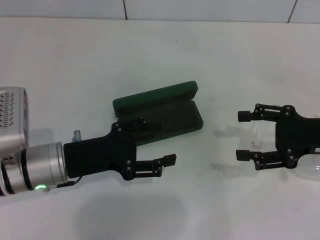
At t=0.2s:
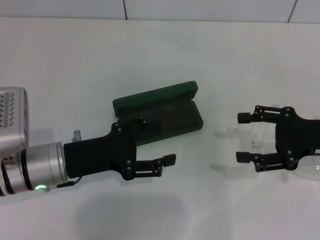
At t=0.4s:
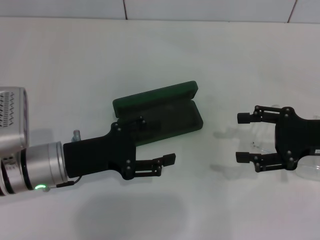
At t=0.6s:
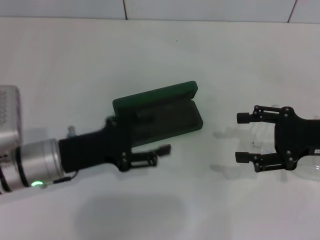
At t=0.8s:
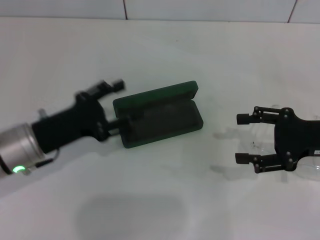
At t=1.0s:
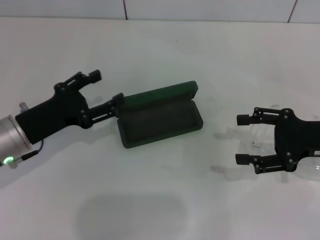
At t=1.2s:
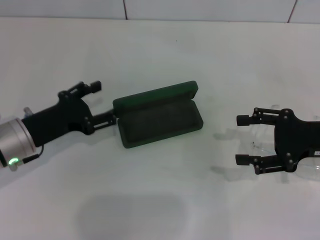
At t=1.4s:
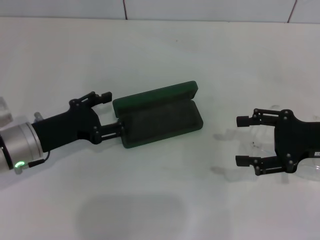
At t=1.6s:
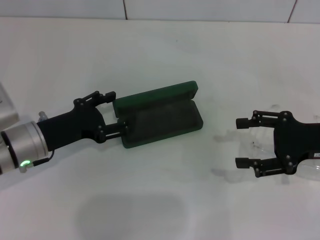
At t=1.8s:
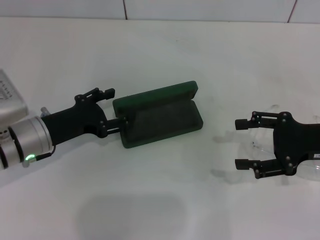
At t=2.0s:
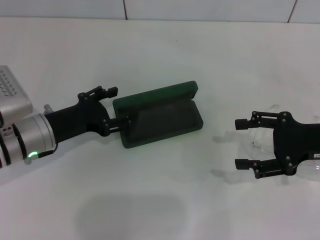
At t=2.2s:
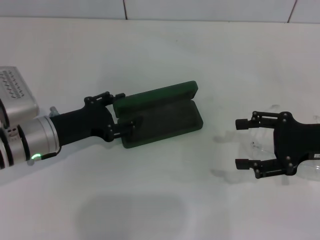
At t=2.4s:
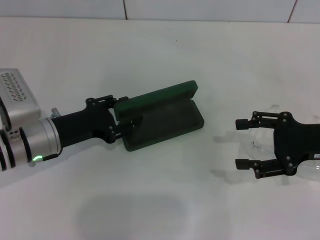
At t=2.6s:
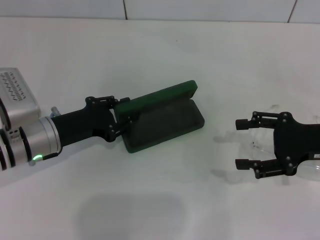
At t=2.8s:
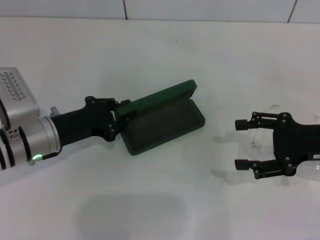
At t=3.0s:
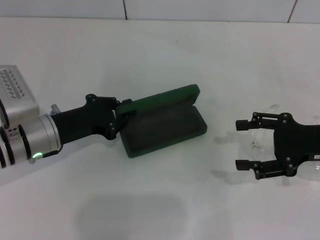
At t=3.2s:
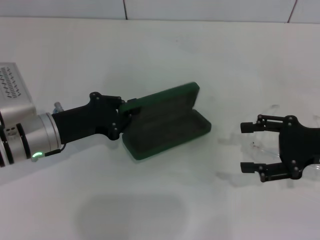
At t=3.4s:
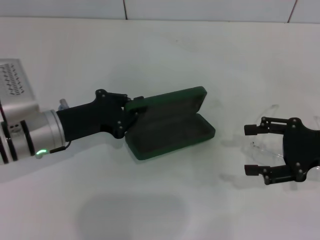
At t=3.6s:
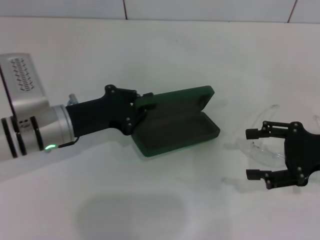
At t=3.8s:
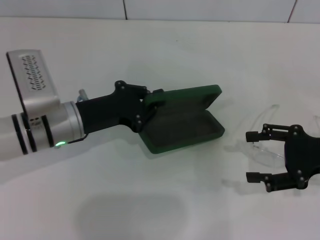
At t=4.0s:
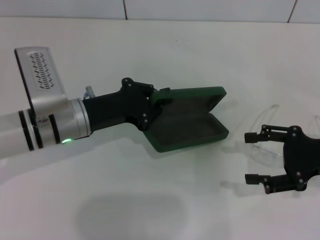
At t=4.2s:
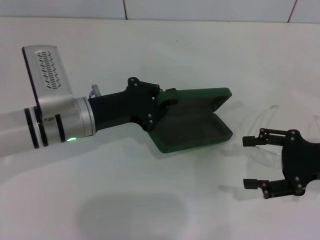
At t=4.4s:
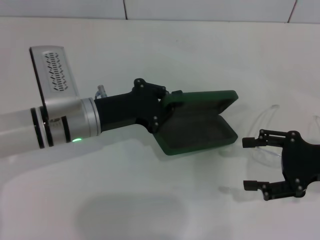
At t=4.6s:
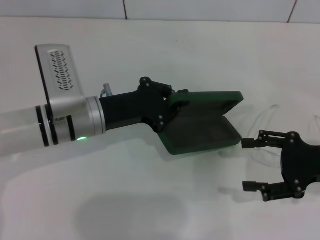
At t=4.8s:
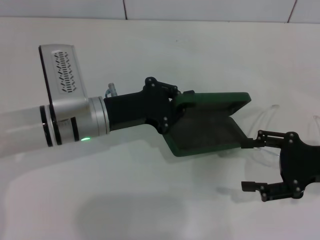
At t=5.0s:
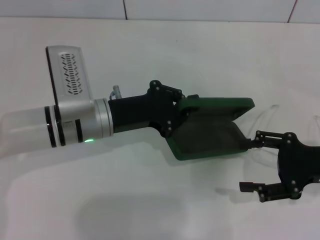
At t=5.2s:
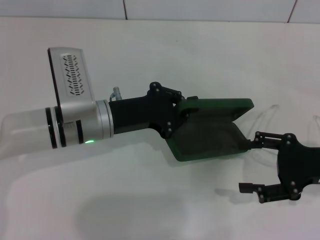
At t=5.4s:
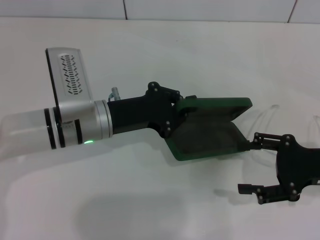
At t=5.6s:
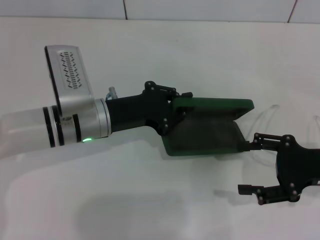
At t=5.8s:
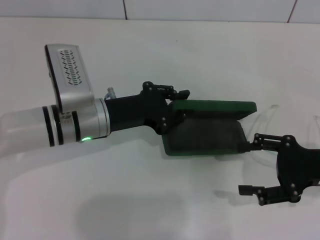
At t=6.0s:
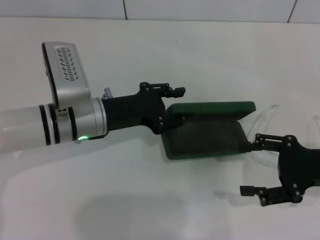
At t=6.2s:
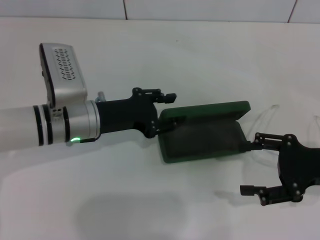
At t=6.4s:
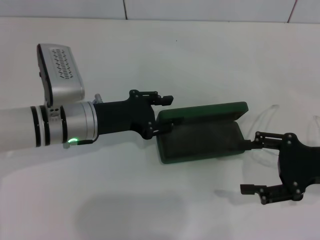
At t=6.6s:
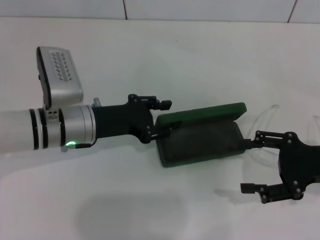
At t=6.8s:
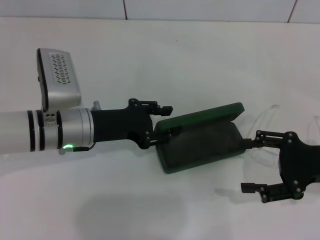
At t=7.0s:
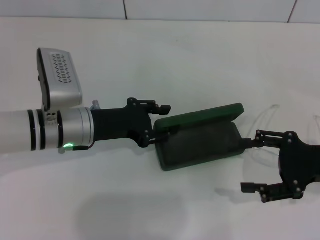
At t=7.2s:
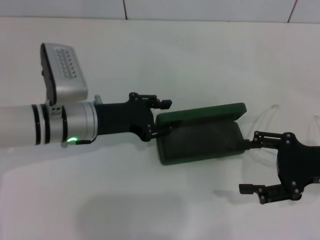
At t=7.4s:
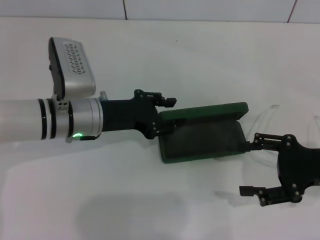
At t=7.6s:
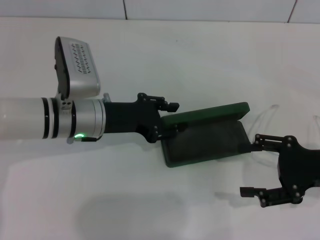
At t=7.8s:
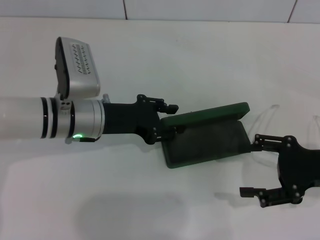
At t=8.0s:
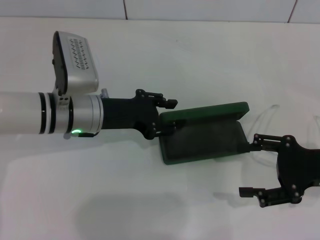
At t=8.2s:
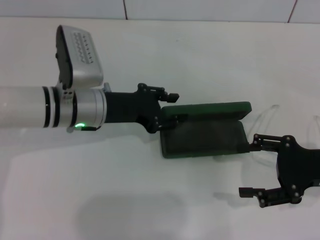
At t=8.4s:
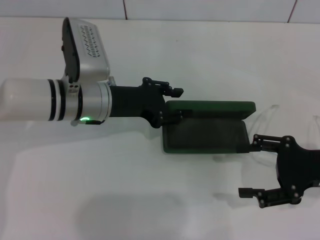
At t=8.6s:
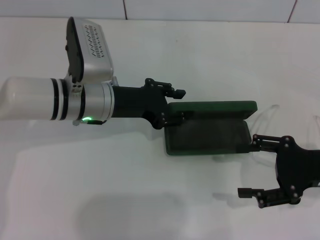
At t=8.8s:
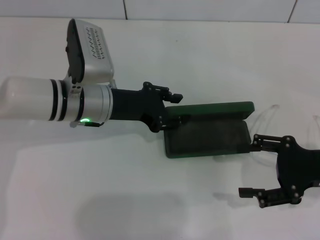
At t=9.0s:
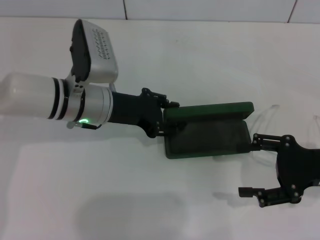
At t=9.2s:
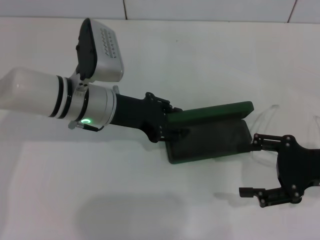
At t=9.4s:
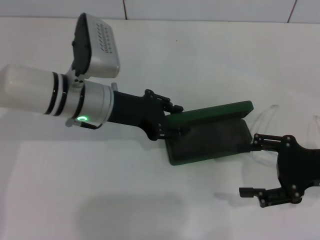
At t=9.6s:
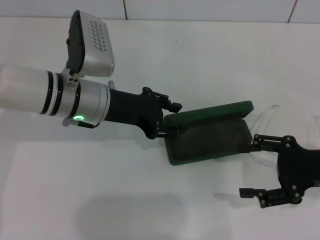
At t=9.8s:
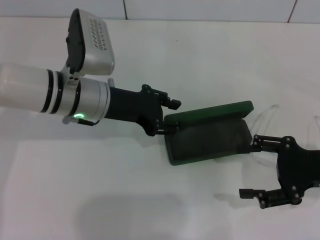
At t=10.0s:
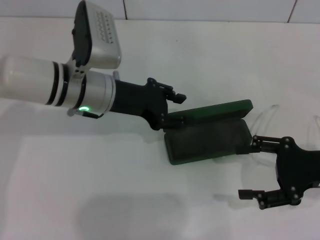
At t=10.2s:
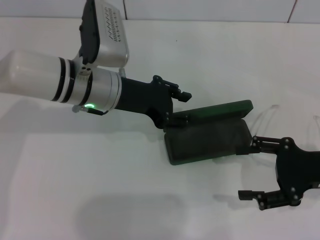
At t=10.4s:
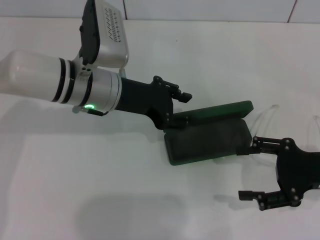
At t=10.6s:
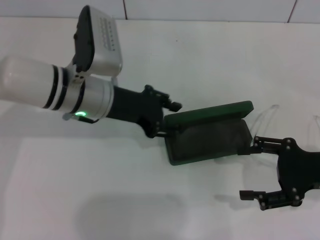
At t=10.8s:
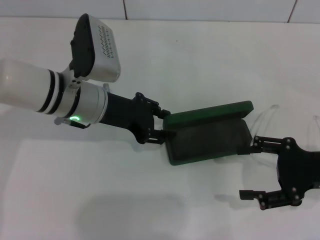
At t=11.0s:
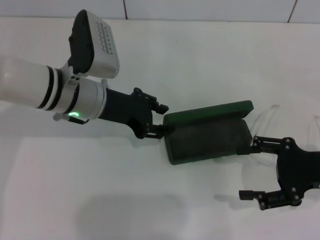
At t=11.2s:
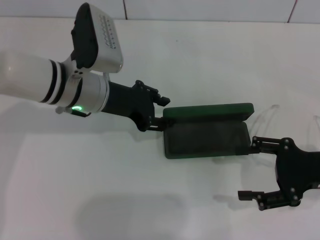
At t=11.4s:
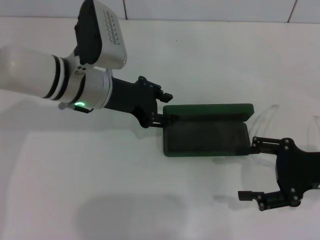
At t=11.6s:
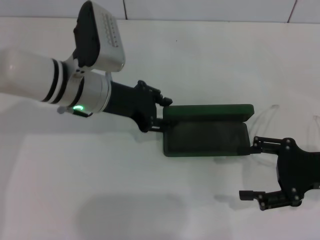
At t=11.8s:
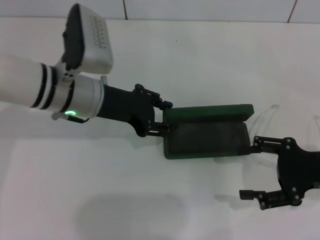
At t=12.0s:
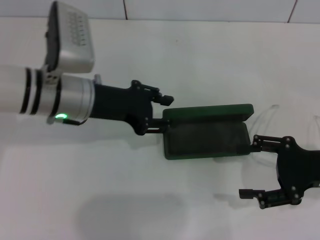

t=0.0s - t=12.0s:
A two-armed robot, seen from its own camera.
Step, t=0.0s - t=2.8s: Grab the glasses case with your left hand.
Step, t=3.2s - t=9.4s: Place the glasses case in the center of the table with your left hand.
t=1.6s - t=3.0s: The left gripper closes its fingers.
t=3.0s - t=4.4s: The left gripper heads to the right, covering roughly 5 cm.
t=4.4s - t=7.6s: The grippers stay close to where they were, moving slightly.
t=7.6s - t=9.0s: The grippers stay close to where they were, moving slightly.
t=9.0s - t=12.0s: The grippers move only a little.

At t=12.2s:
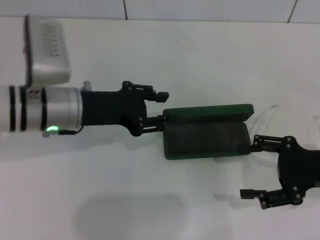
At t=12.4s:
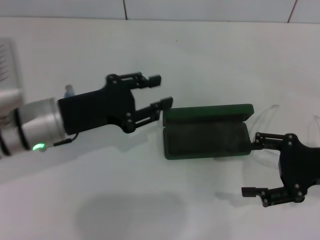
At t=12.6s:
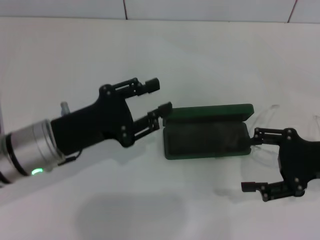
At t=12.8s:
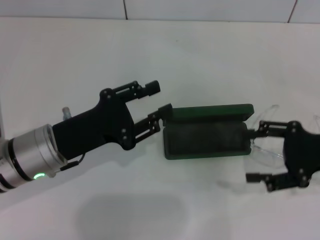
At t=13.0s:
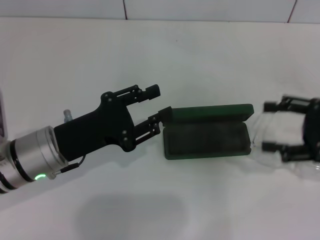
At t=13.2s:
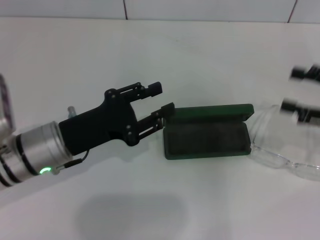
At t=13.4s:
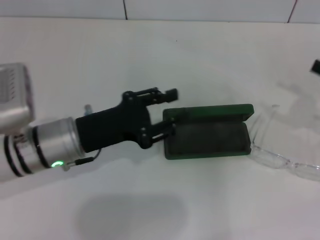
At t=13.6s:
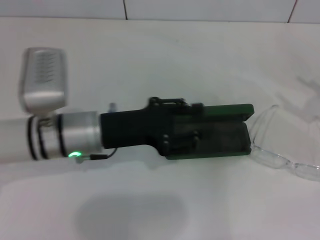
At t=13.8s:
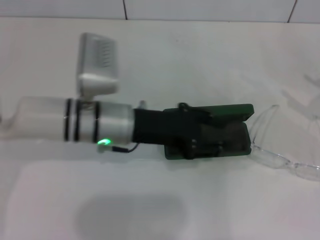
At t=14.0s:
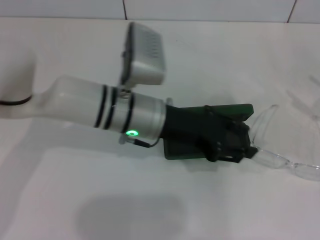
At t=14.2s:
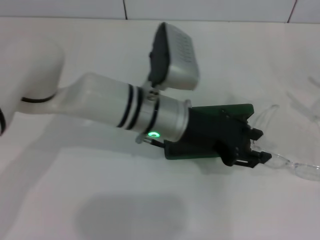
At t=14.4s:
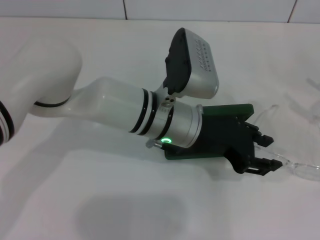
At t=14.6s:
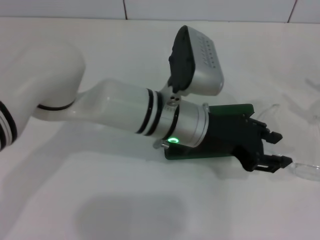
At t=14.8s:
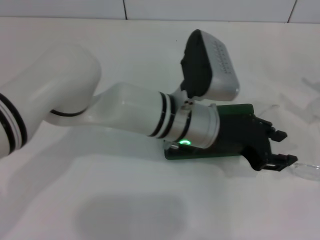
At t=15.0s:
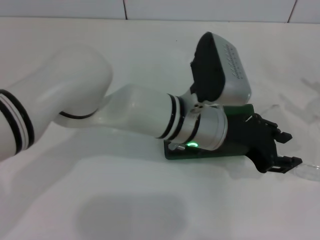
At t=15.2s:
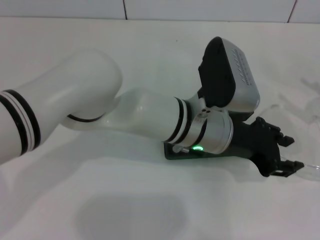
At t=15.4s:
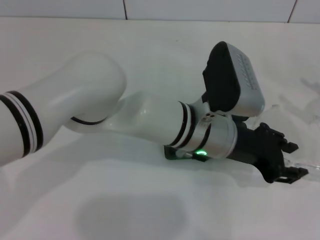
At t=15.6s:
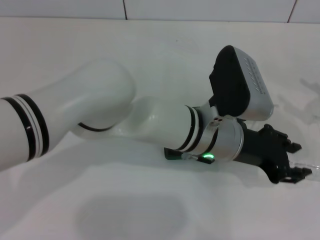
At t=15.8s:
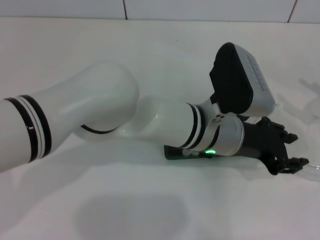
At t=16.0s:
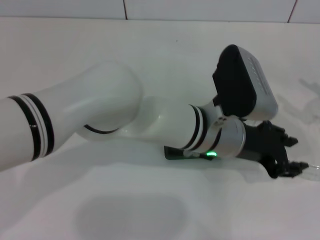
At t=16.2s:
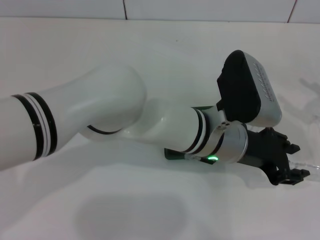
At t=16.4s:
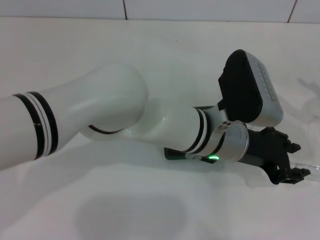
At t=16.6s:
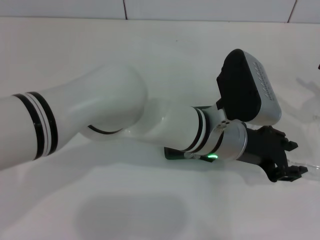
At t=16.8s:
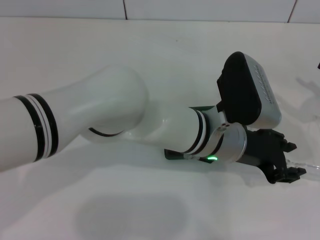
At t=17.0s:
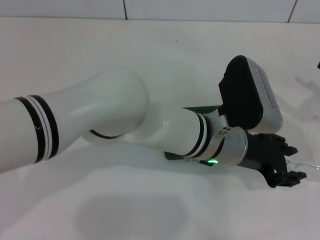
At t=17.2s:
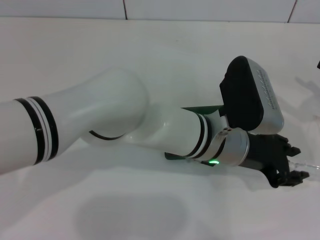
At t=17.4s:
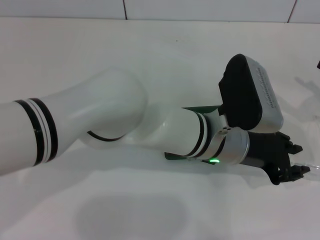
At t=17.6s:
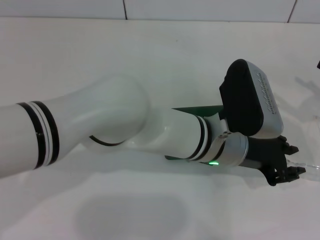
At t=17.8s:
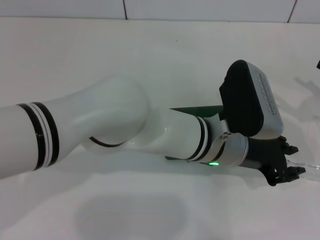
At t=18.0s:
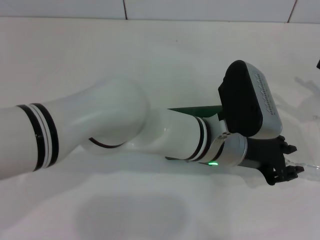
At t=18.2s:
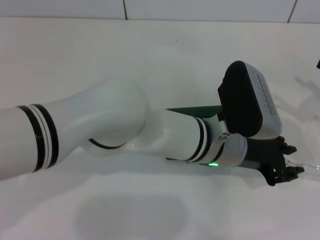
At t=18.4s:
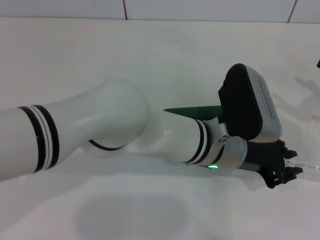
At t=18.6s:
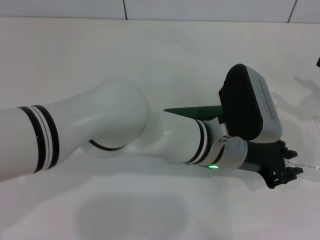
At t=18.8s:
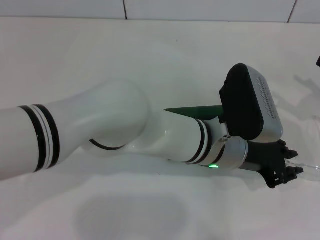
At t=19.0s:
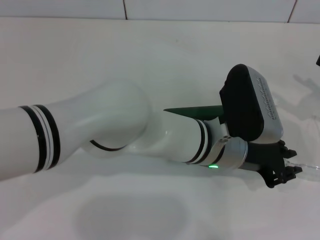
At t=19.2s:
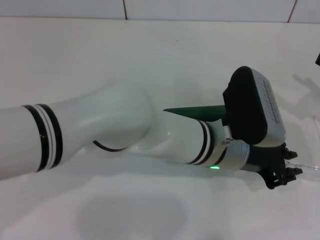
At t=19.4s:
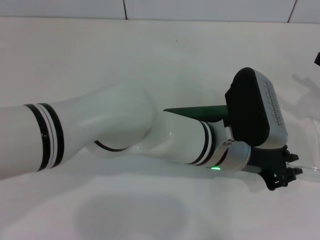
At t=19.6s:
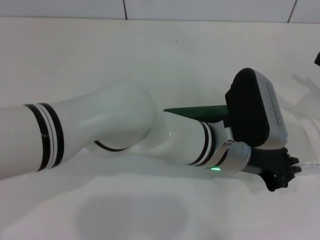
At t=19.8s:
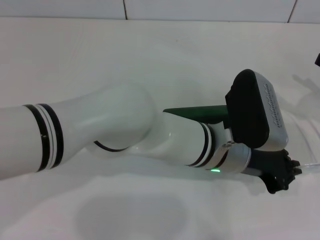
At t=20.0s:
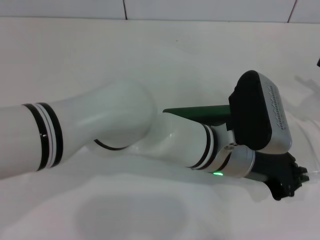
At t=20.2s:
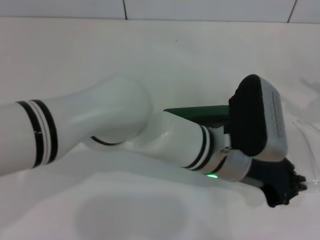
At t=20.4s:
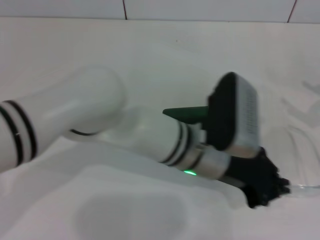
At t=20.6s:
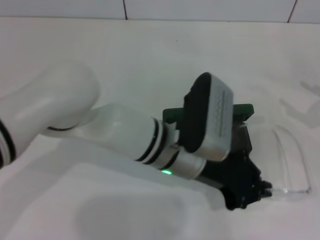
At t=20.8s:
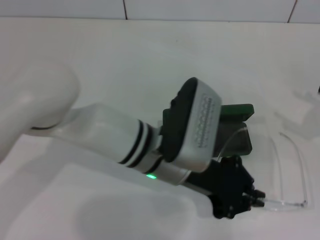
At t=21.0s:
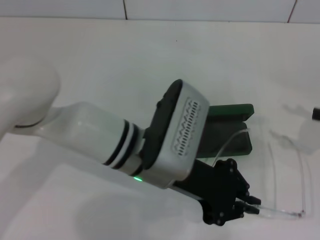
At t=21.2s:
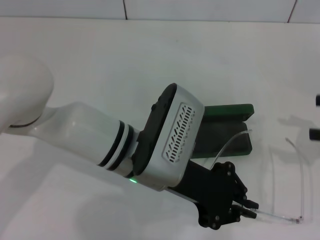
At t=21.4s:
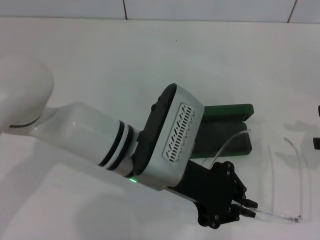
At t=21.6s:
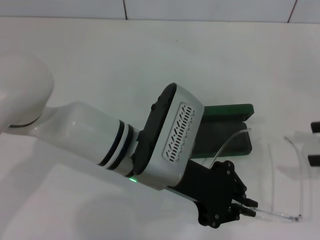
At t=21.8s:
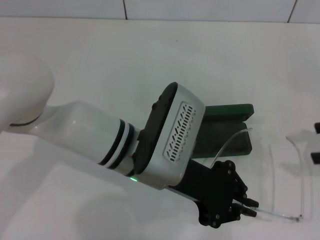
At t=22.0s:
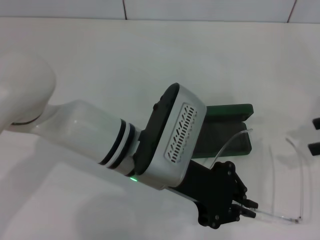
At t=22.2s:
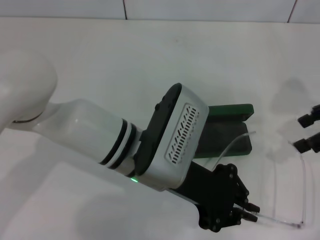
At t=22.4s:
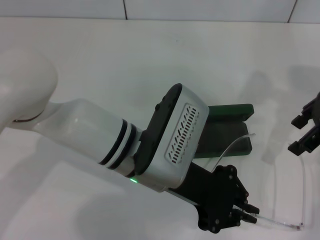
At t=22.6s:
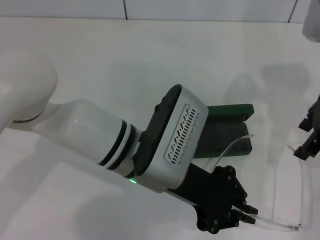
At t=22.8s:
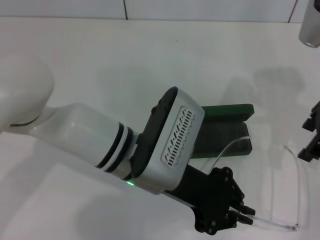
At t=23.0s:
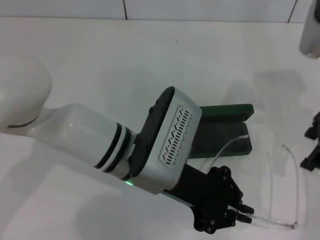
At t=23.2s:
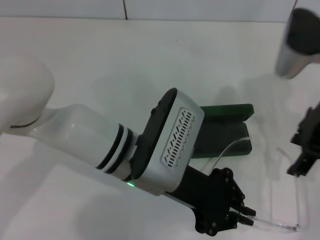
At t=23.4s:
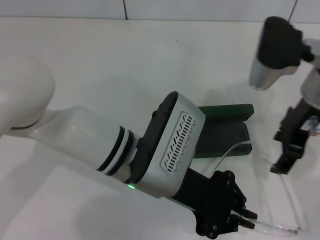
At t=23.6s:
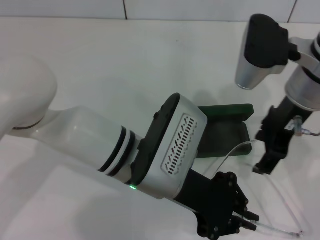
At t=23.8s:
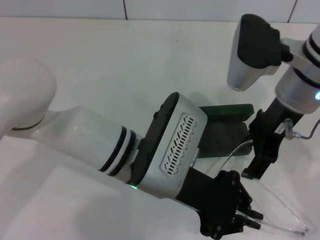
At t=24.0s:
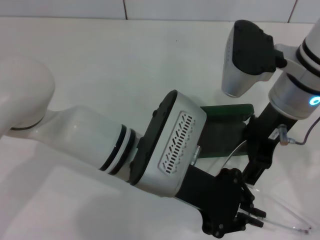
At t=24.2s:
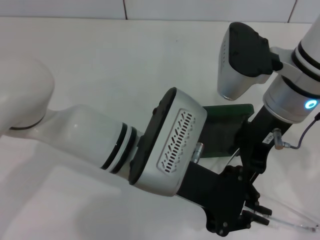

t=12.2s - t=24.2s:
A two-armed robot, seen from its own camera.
Step, t=12.2s - t=19.6s: Grab the glasses with your left hand.
t=12.2s - t=13.8s: The left gripper shifts some 5 cm to the right. The right gripper is displaced to the right by roughly 10 cm.
t=13.8s - t=15.2s: The left gripper moves to the right, approximately 15 cm.
t=15.2s - t=16.6s: There are only small adjustments of the grippers.
t=16.6s - t=18.2s: The two grippers keep their place.
t=18.2s - t=19.8s: The two grippers keep their place.
t=19.8s - t=21.2s: The left gripper heads to the left, covering approximately 10 cm.
t=21.2s - t=22.6s: The right gripper shifts approximately 20 cm to the left, forward and upward.
t=22.6s - t=24.2s: The right gripper travels to the left by about 10 cm.
